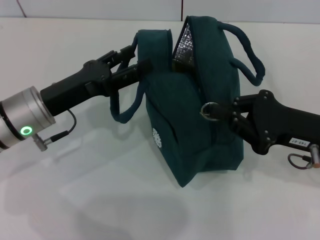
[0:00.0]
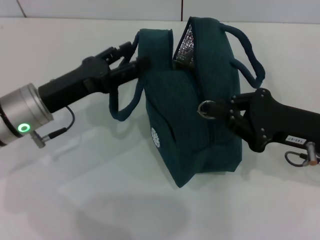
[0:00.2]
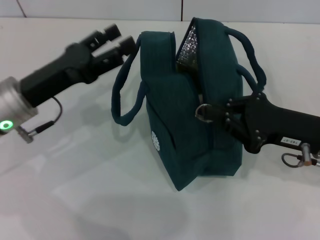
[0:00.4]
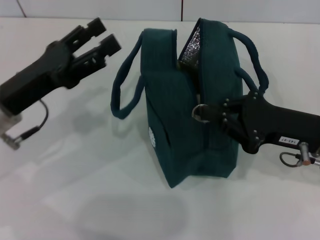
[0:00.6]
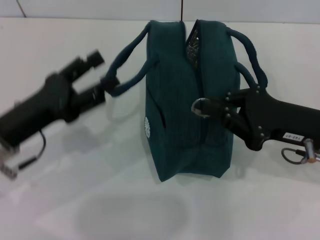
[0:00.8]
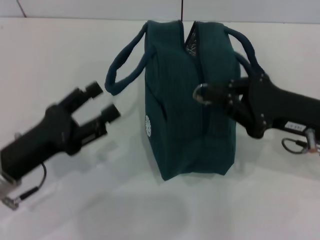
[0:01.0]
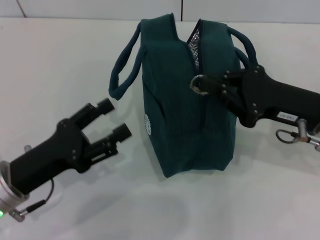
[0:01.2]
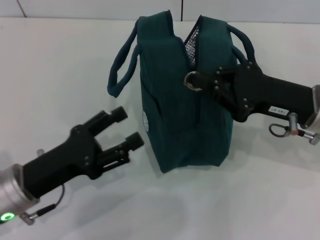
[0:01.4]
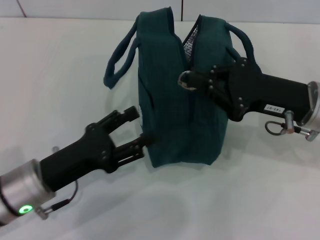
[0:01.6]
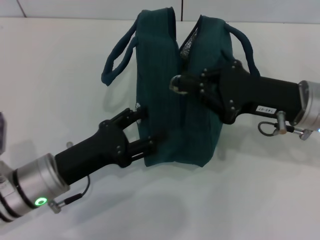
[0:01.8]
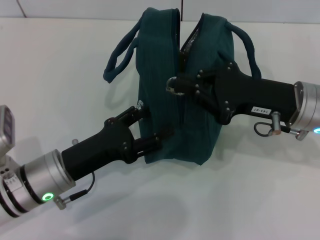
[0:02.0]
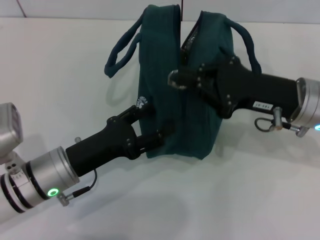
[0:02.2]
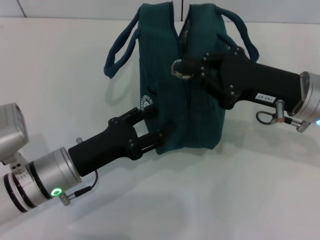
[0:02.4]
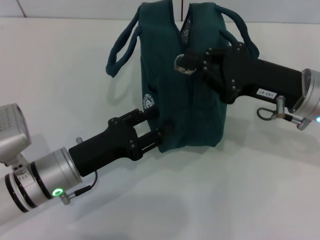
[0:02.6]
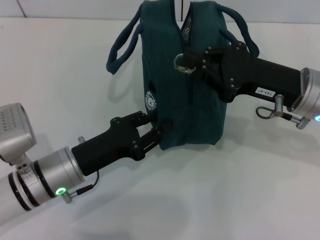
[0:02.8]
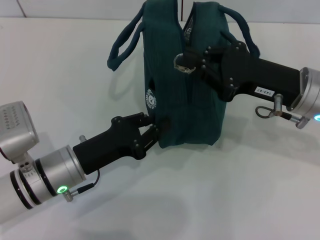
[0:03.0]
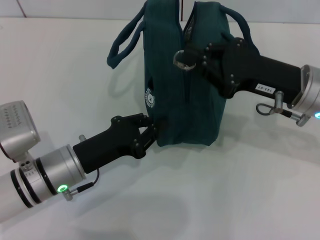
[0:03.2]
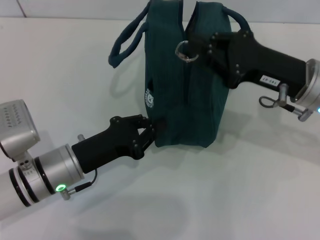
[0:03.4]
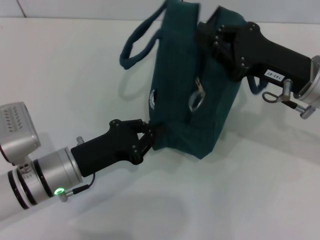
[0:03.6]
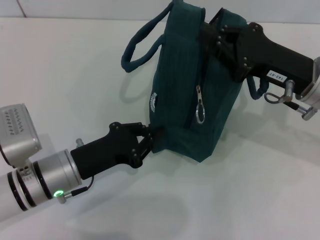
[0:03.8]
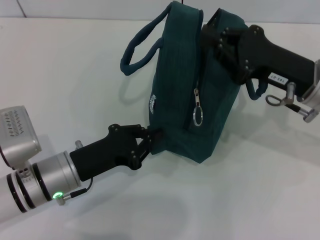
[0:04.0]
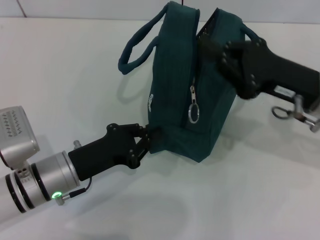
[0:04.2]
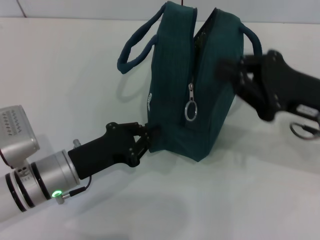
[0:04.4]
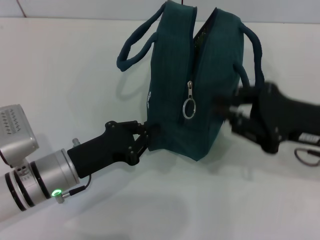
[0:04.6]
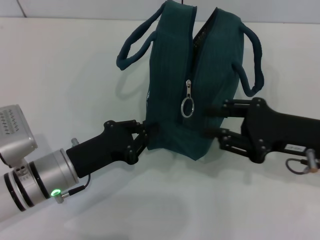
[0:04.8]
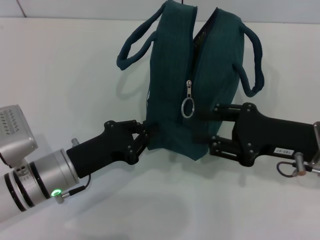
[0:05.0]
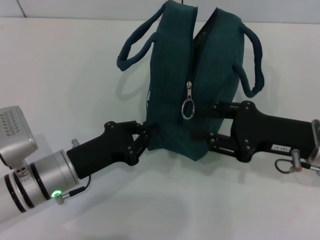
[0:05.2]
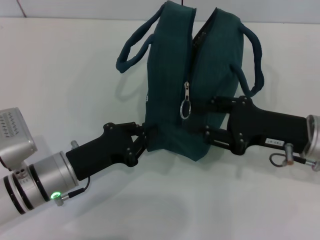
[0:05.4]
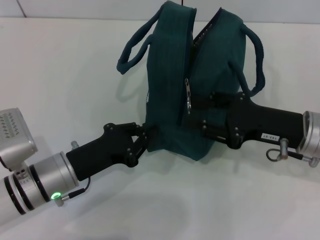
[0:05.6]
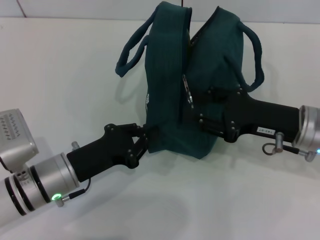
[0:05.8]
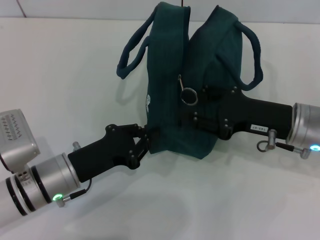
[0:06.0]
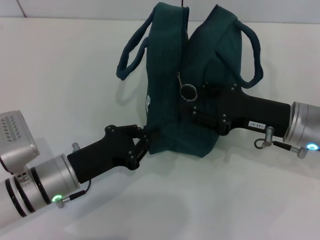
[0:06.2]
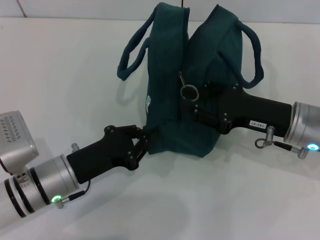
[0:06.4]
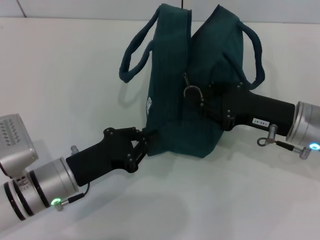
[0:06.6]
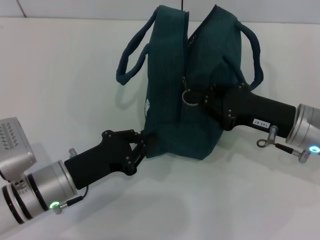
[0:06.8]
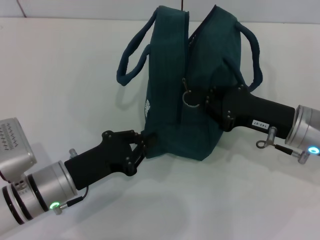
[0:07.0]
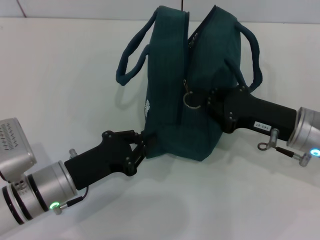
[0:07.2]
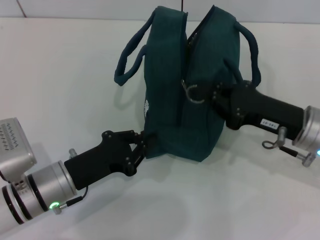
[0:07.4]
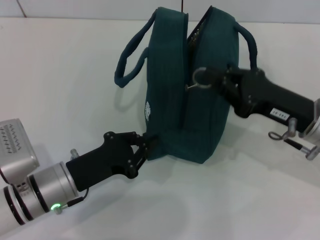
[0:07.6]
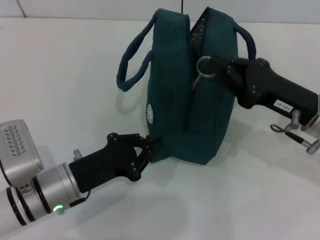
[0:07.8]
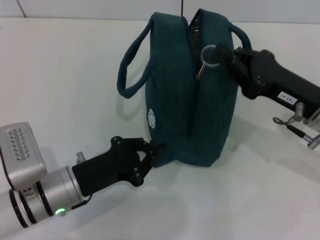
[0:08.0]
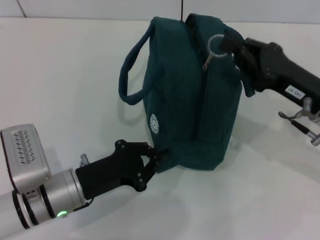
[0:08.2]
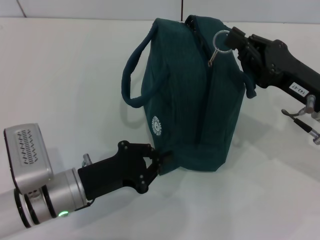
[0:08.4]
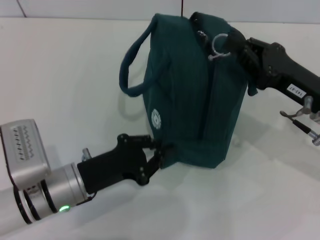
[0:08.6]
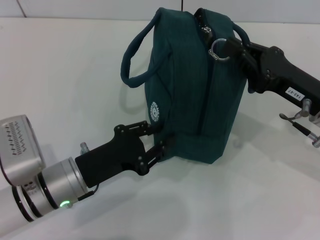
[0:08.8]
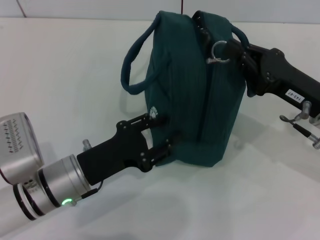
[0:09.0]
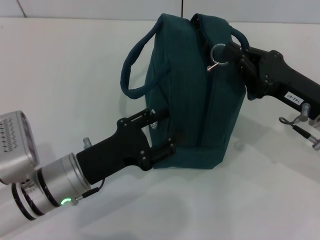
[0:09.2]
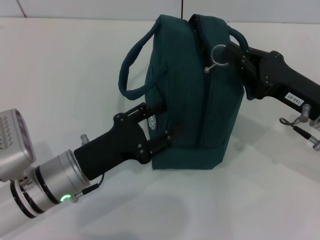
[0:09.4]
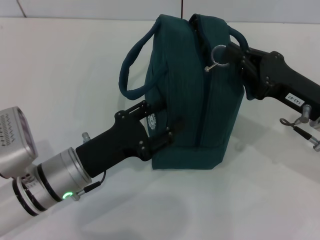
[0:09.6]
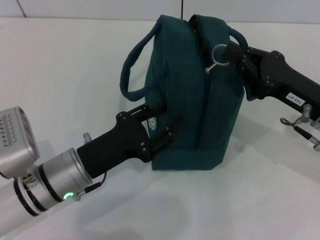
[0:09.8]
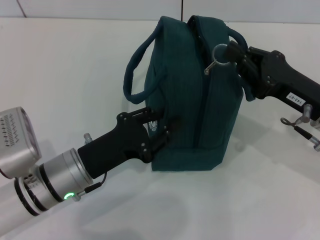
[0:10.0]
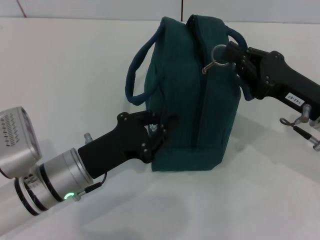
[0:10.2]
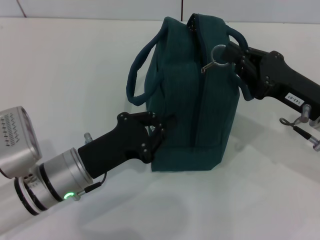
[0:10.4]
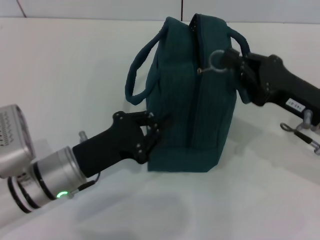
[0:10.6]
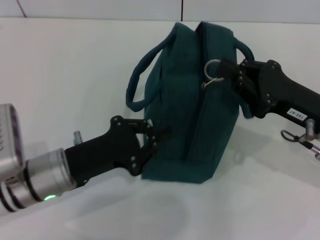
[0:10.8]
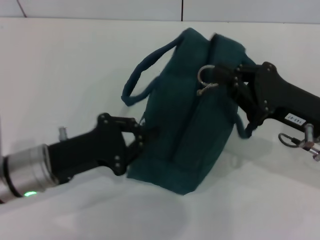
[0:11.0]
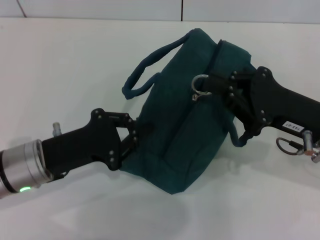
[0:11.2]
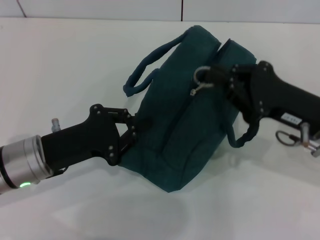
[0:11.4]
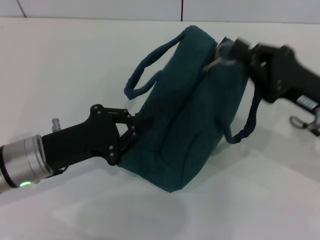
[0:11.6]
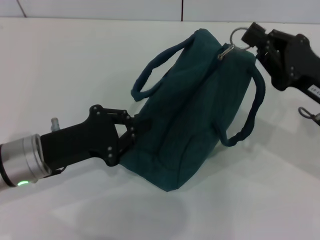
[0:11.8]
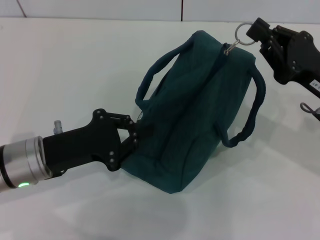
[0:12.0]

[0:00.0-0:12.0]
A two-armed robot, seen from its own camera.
0:00.0 to 0:01.6: The left gripper goes about 10 cm backward; the right gripper shifts by approximately 5 cm.
0:01.6 to 0:03.0: The left gripper closes.
0:03.0 to 0:04.4: There are only small adjustments of the grippers.
0:04.4 to 0:06.0: The right gripper ends up approximately 5 cm from where it was, and opens its fingers.
0:06.0 to 0:07.6: The right gripper closes its fingers.
0:07.6 to 0:10.4: The grippers move only a little.
0:10.4 to 0:12.0: The left gripper travels to the left by approximately 5 cm.

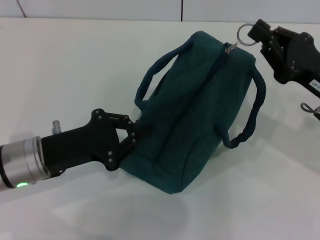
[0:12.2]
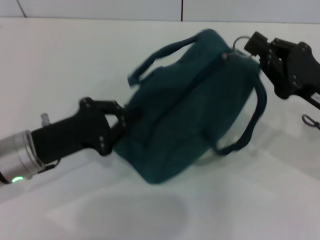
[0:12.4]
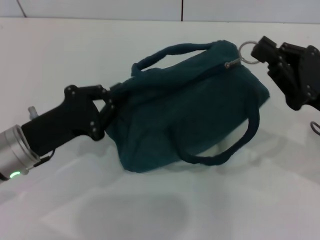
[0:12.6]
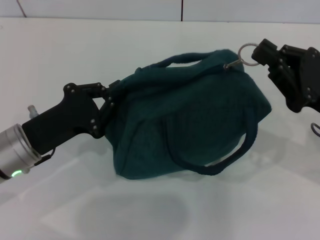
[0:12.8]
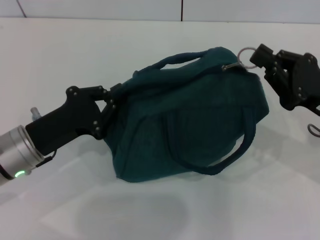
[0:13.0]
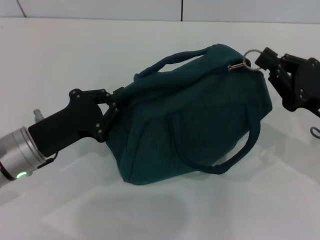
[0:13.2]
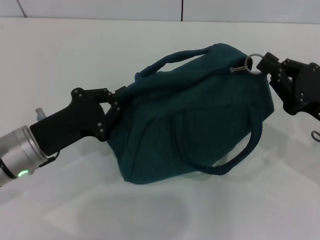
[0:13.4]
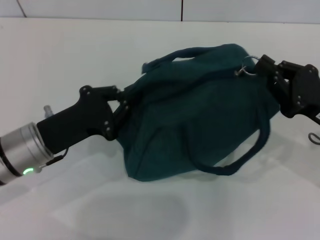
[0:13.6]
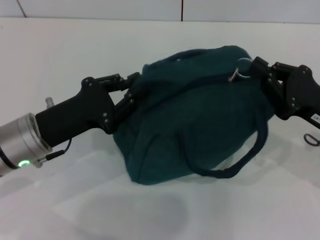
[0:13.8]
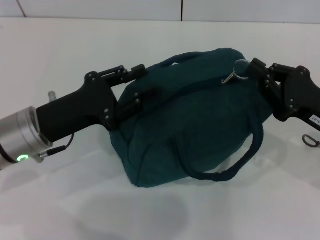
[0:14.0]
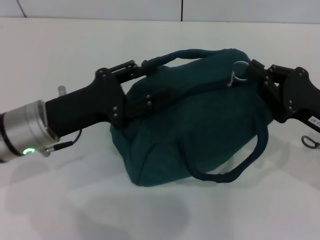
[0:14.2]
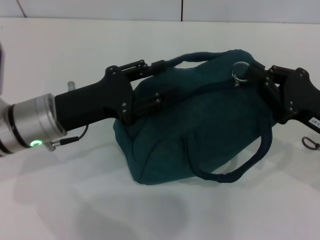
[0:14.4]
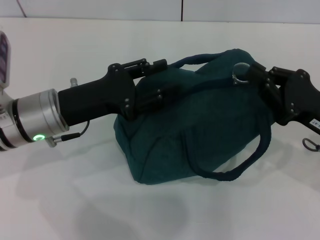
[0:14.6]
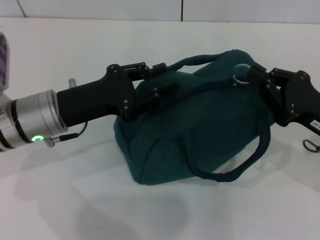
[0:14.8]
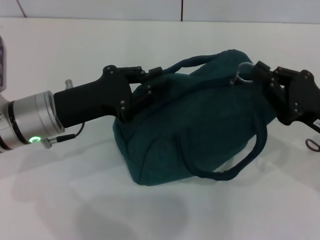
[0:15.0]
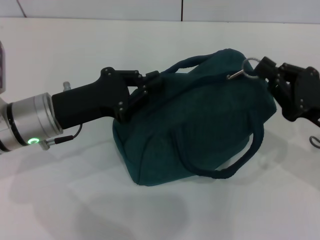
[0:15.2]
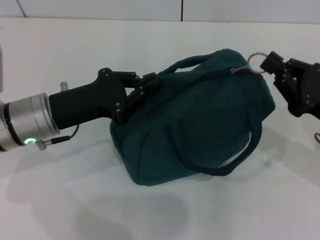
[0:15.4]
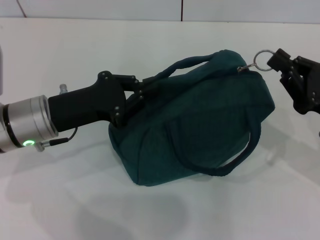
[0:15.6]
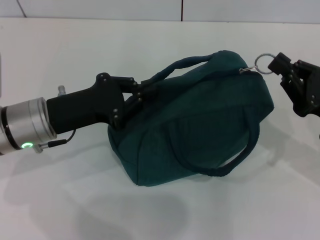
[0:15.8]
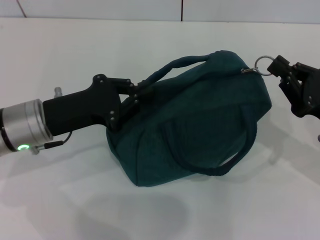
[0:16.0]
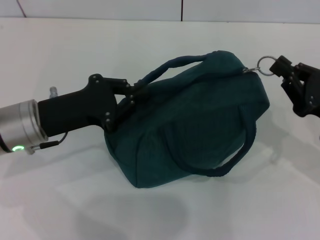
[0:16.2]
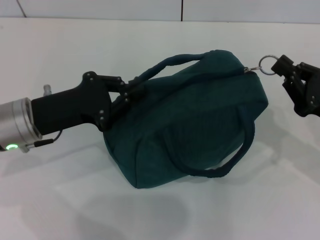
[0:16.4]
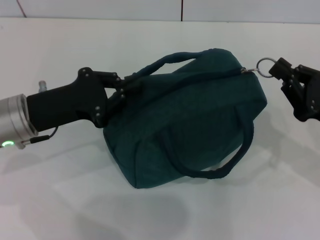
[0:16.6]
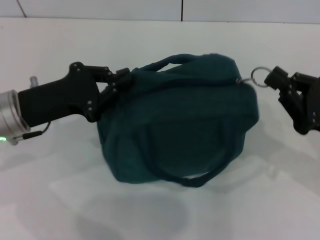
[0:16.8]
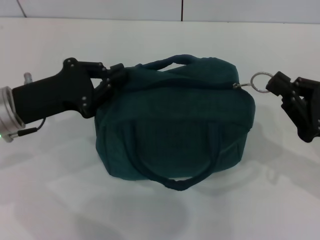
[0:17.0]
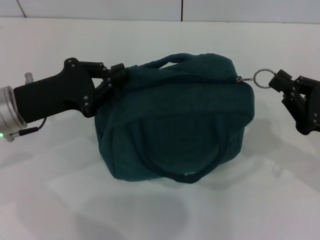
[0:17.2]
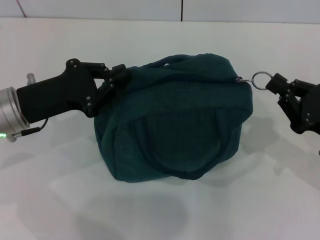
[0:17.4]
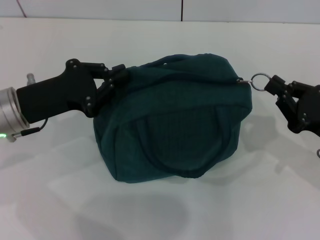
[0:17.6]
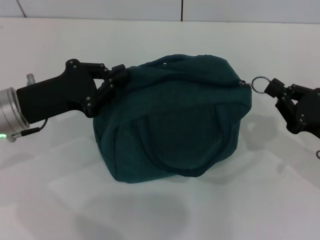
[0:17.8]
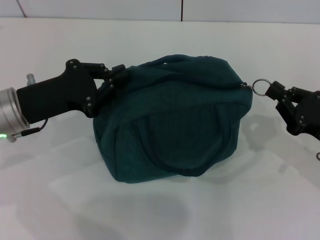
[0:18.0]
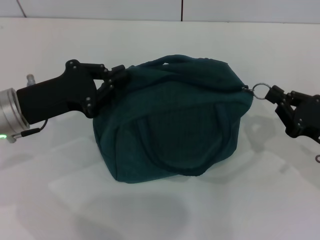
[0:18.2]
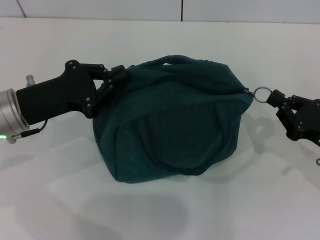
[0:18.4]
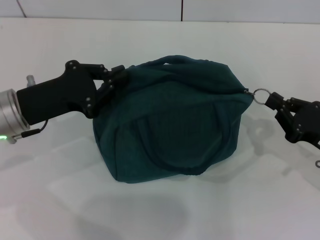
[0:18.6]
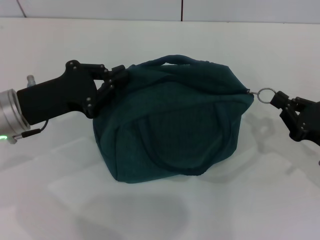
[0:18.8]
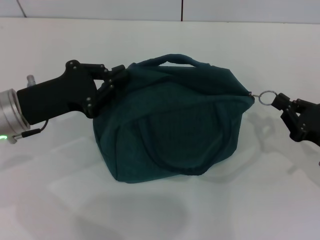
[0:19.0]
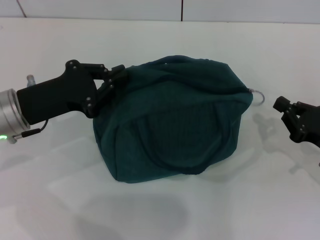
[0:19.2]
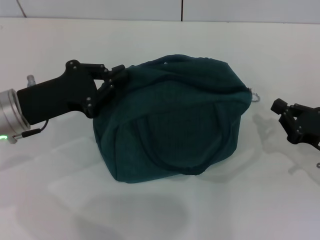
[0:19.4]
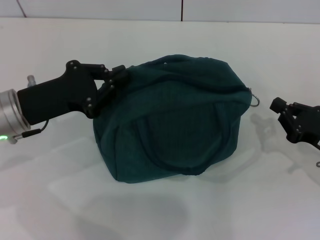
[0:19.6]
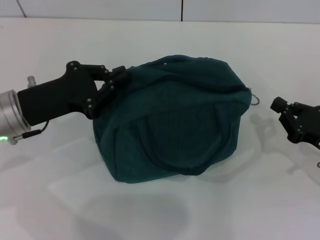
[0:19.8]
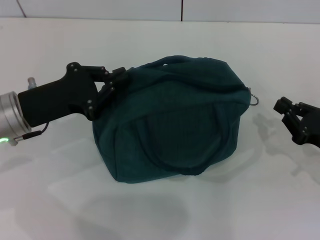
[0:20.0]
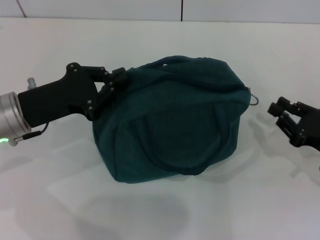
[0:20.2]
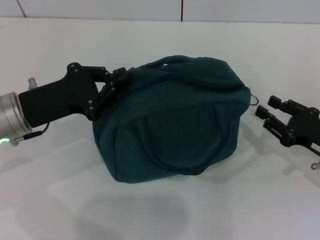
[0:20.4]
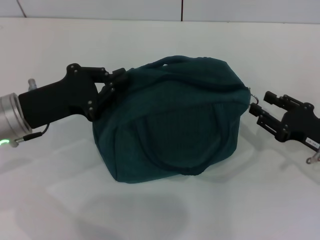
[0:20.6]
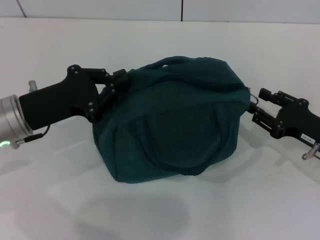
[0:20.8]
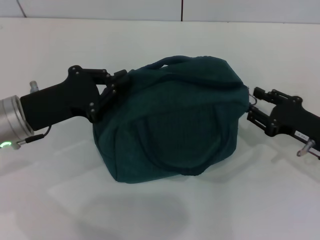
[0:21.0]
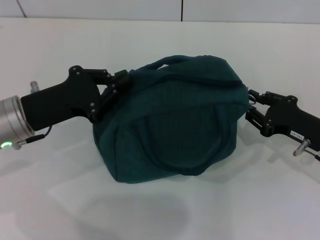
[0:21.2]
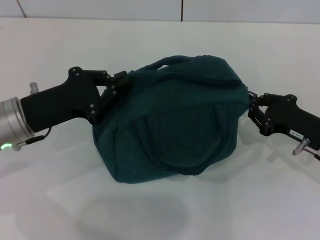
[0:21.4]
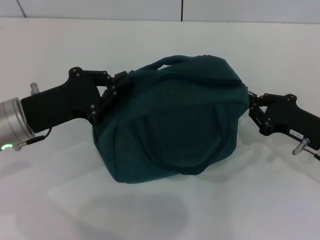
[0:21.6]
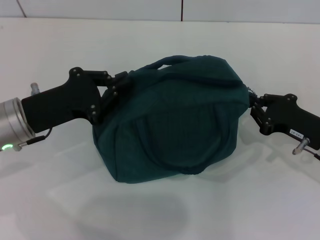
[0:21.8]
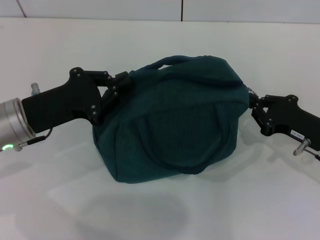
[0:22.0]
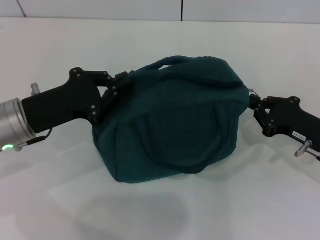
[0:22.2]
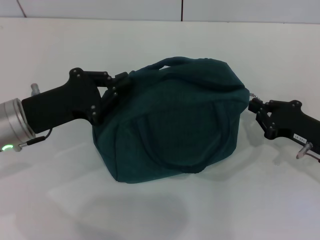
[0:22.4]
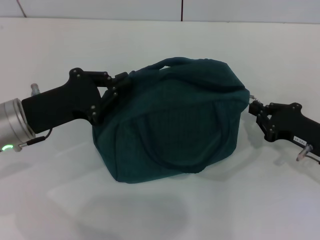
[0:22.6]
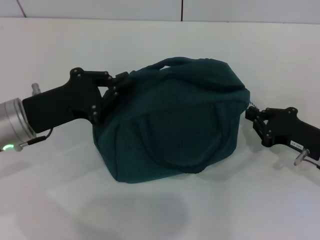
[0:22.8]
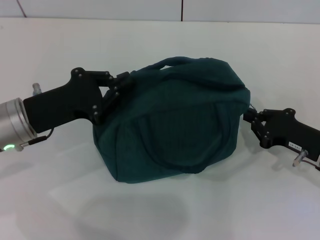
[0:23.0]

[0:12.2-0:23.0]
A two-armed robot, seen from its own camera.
0:13.8 to 0:15.2: The left gripper opens, then closes once more.
0:15.2 to 0:18.4: The grippers make only small movements.
0:18.4 to 0:20.0: The grippers make only small movements.
0:20.0 to 0:21.4: The right gripper moves roughly 5 cm, and opens its fingers.
0:21.4 to 0:23.0: The right gripper closes its fingers.
